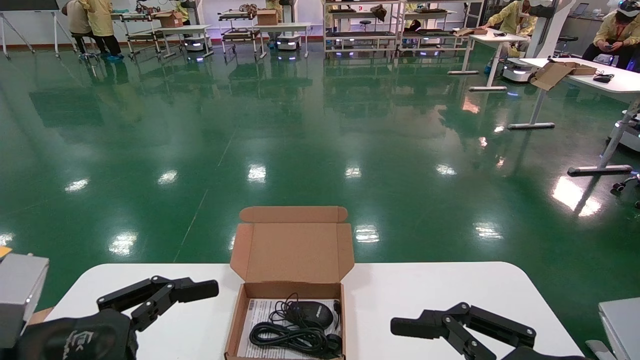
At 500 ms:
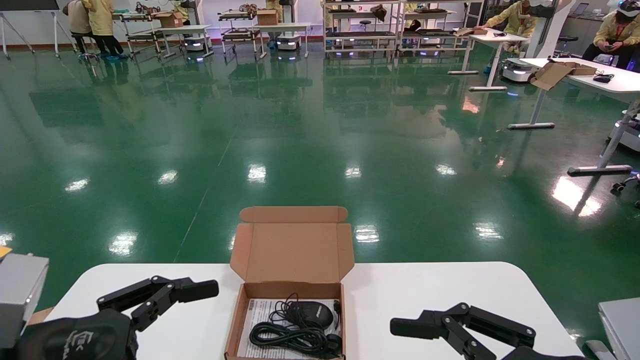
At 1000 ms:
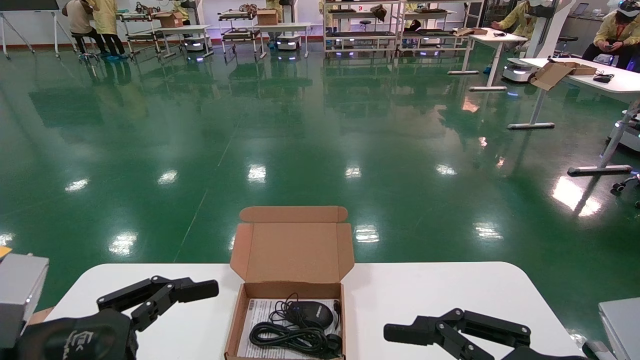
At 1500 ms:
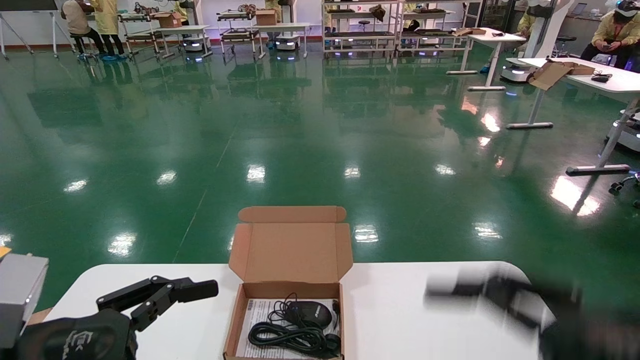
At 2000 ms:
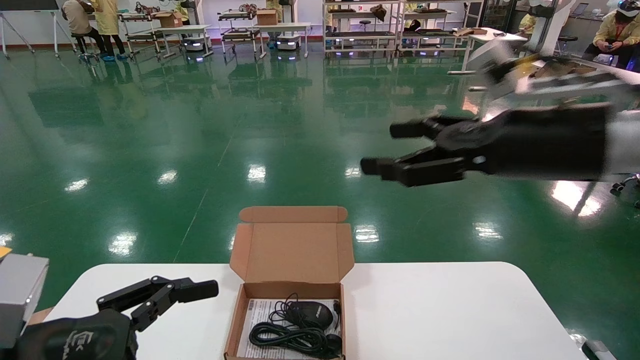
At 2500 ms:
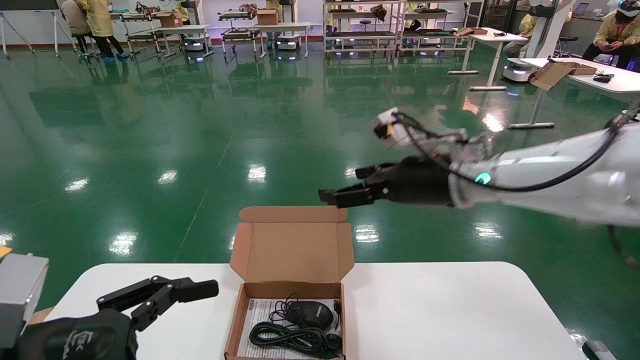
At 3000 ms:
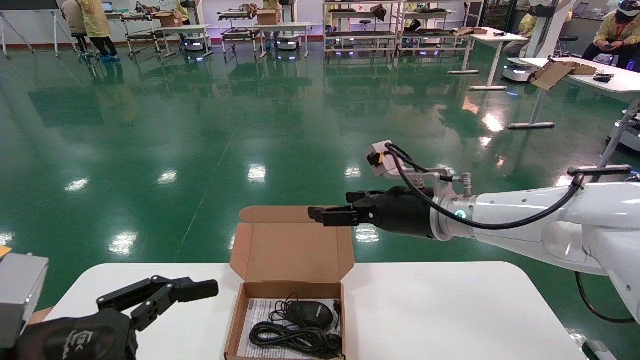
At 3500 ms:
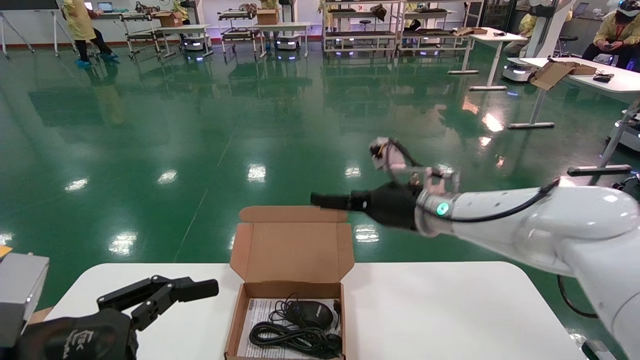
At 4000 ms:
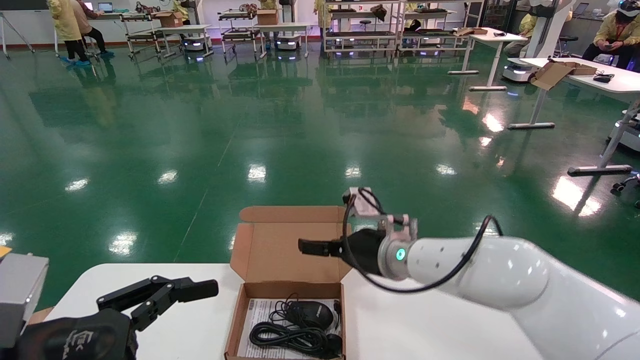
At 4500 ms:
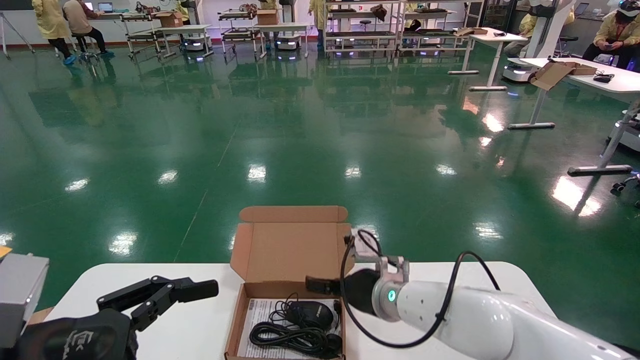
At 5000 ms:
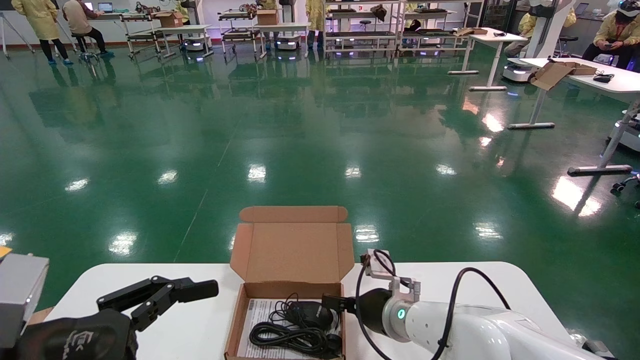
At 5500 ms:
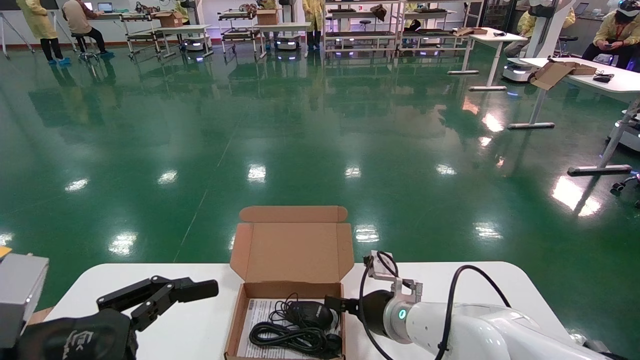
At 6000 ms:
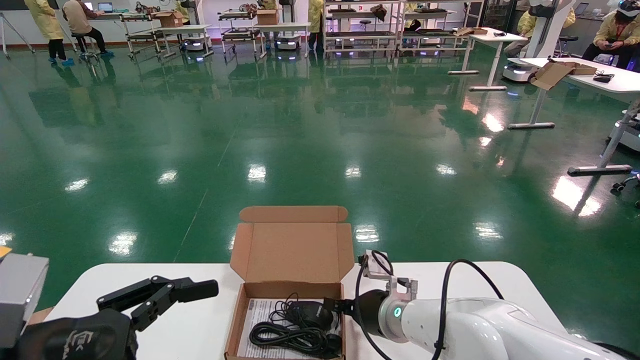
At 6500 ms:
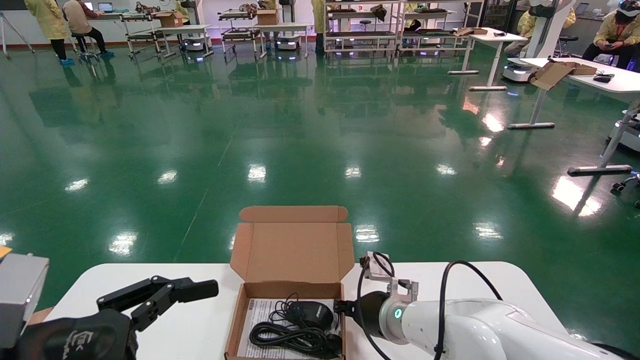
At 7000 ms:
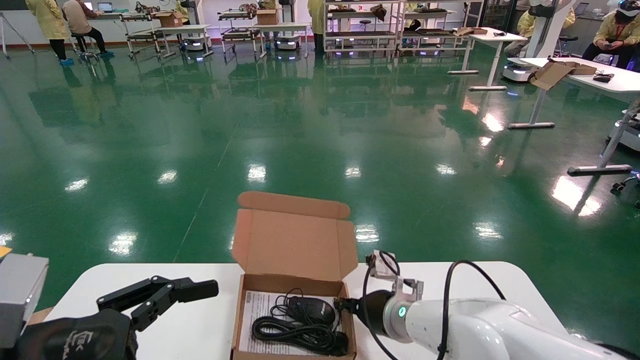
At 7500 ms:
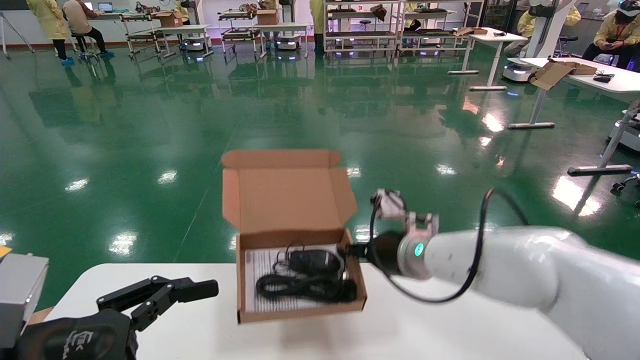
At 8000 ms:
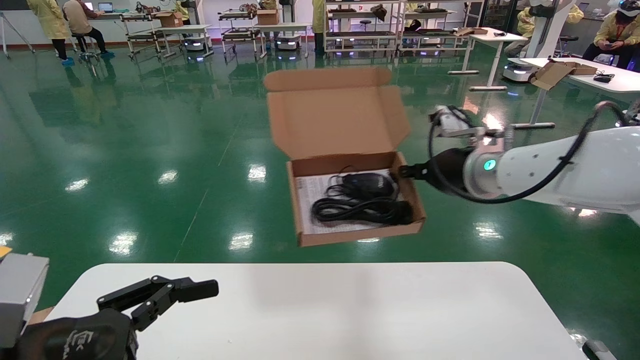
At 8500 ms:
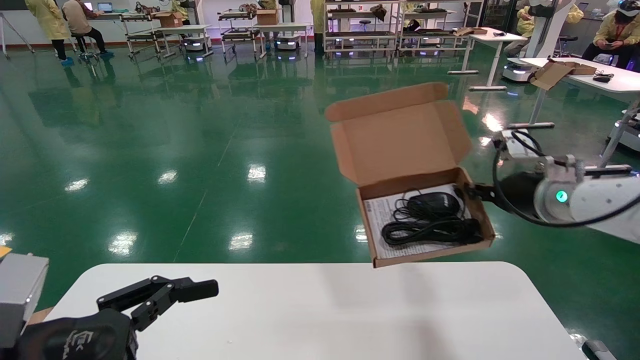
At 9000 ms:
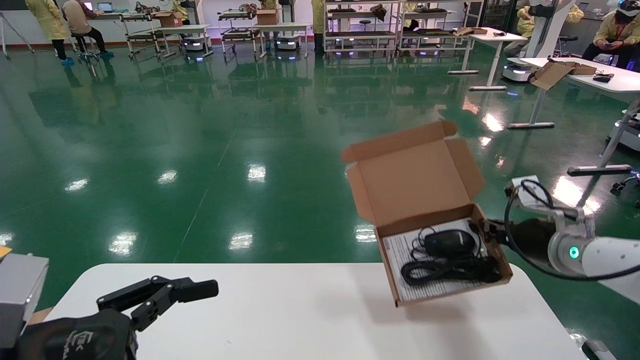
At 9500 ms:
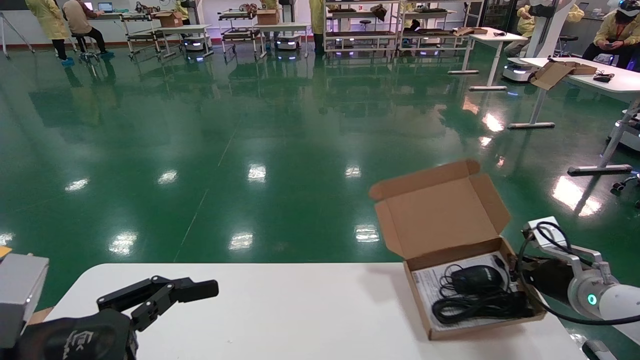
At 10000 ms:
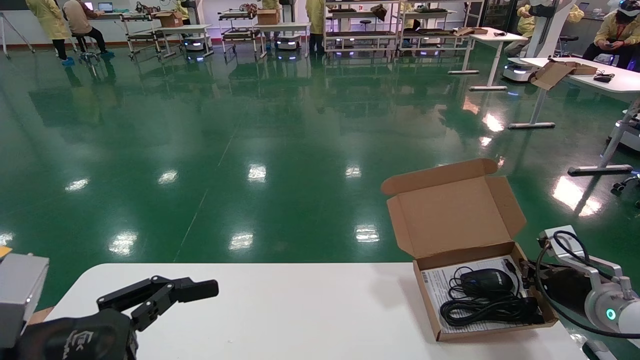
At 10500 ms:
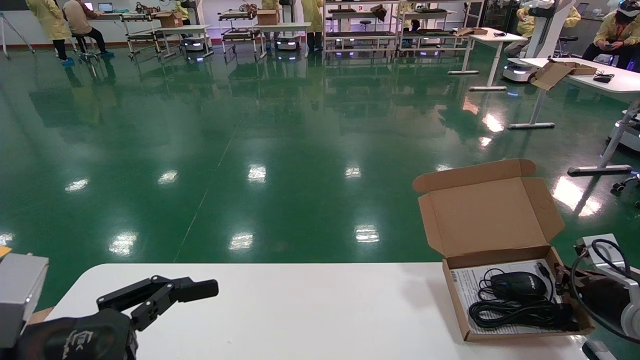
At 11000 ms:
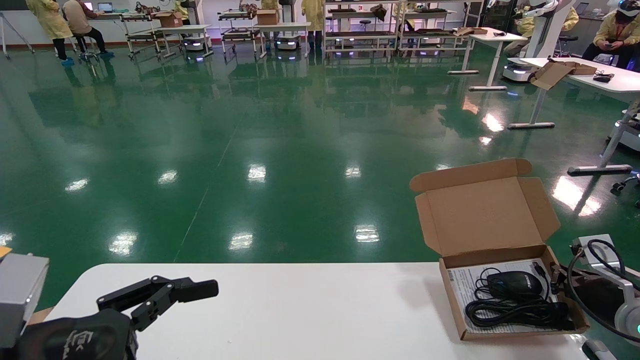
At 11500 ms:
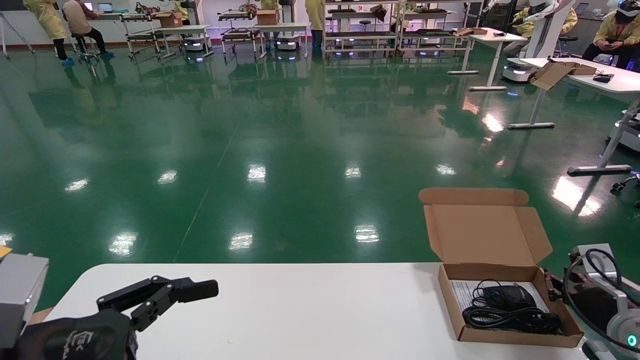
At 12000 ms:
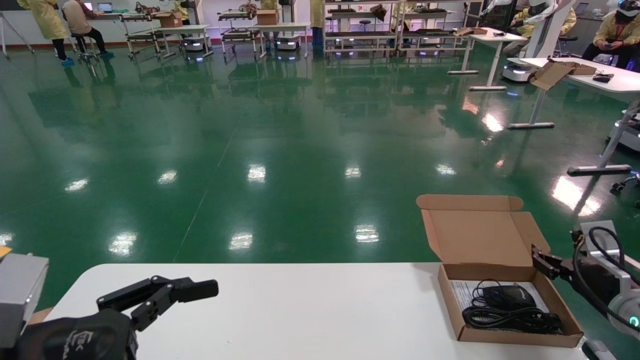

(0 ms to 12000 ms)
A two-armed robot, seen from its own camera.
Task of the whole recording: move the position of the storage box with accessories on the table.
Step, 2000 ms - 6500 ms: Grab and pick up the open mouse box from the accessory packaging area.
Step, 7000 ms - 11500 ms: Place the open mouse box onto the operation table.
0 ms - 2000 ms: The right gripper moves upward and forward, approximately 25 cm.
2000 ms - 4000 ms: The right gripper goes about 25 cm downward, forward and to the left.
4000 ms - 6000 ms: The right gripper is displaced downward by roughly 10 cm.
6000 ms - 8000 ms: The right gripper is displaced upward and to the right by some 25 cm, and closes its fingers.
8000 ms - 10000 ms: The right gripper moves to the right and downward, about 30 cm.
10000 ms - 12000 ms: The right gripper opens its fingers.

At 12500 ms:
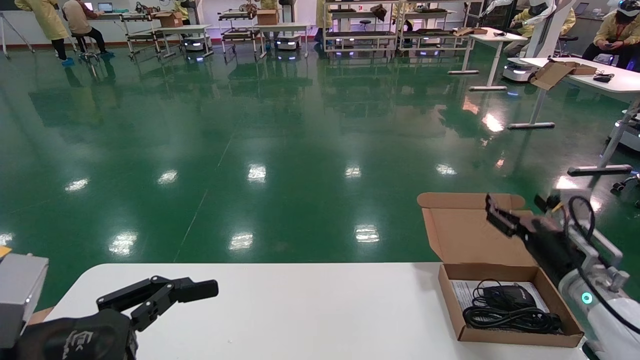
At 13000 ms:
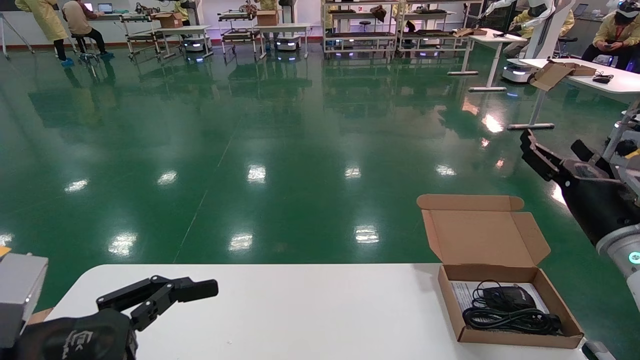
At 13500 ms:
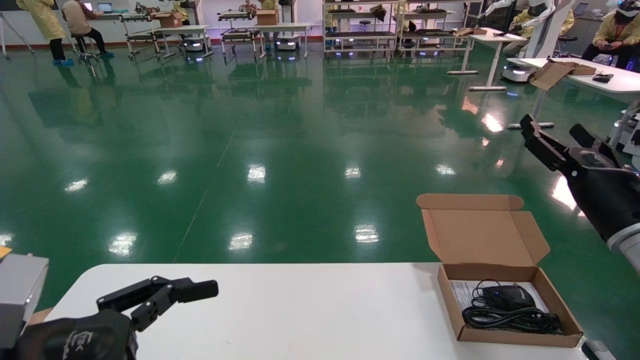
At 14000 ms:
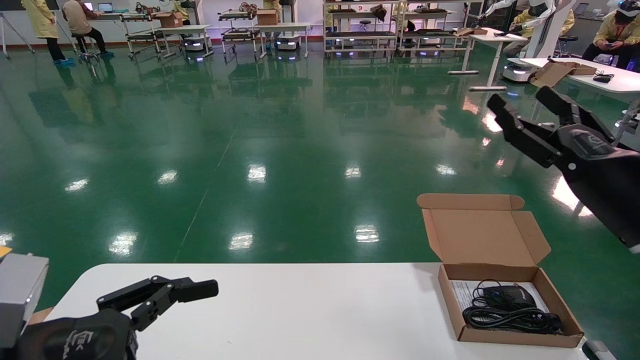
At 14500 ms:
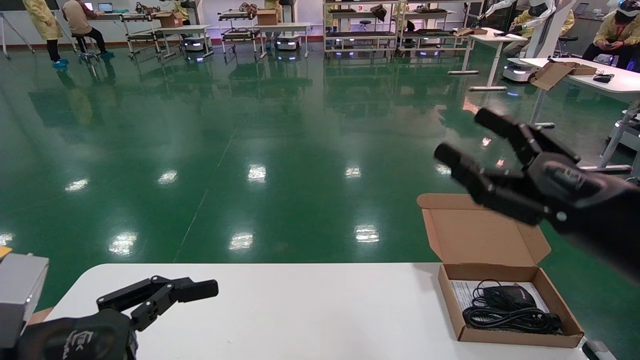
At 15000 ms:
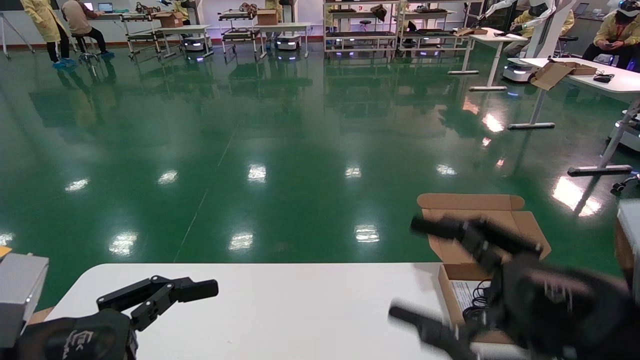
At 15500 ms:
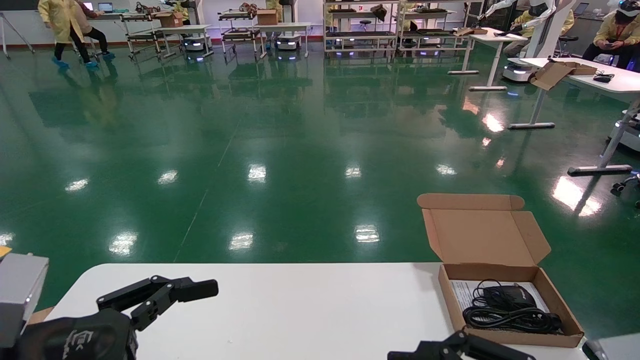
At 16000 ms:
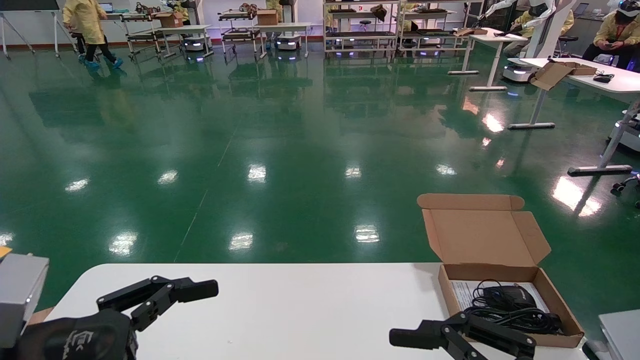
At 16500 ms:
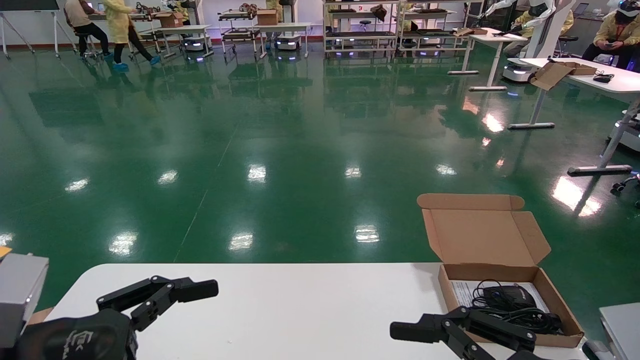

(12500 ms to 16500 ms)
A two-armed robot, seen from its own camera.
Task of the whole recording: move the position of the storage box with accessories on the table.
12500 ms - 14500 ms: The right gripper is displaced backward, upward and to the left by approximately 20 cm.
14500 ms - 16500 ms: The right gripper goes some 10 cm backward and downward.
